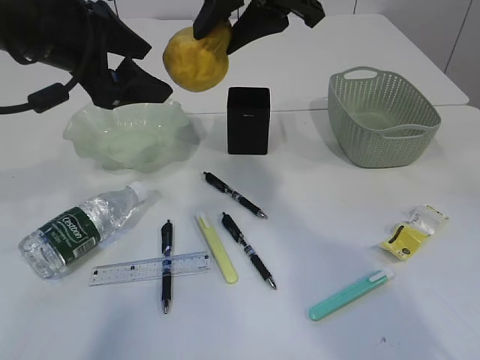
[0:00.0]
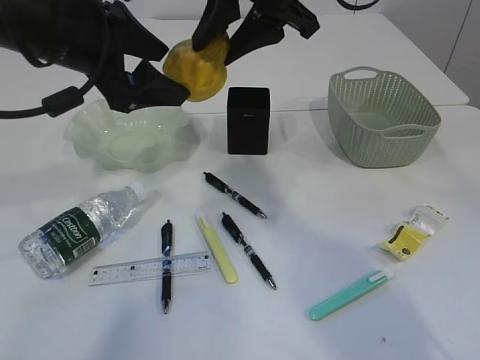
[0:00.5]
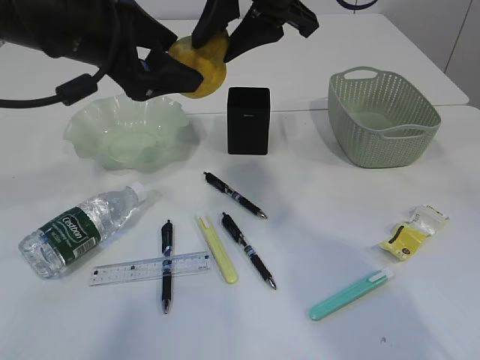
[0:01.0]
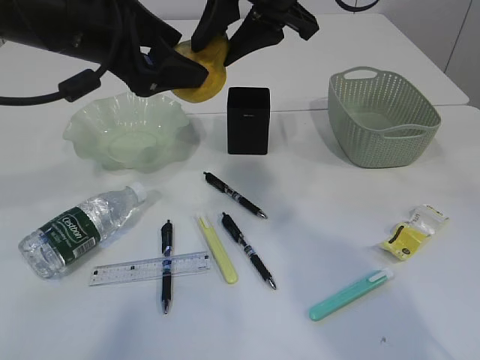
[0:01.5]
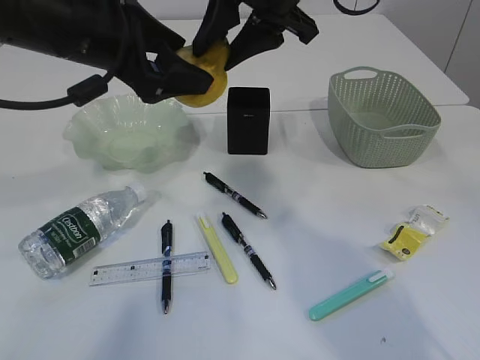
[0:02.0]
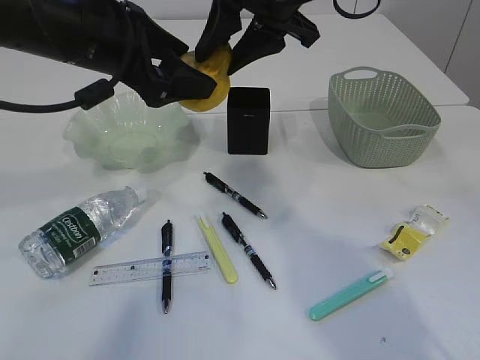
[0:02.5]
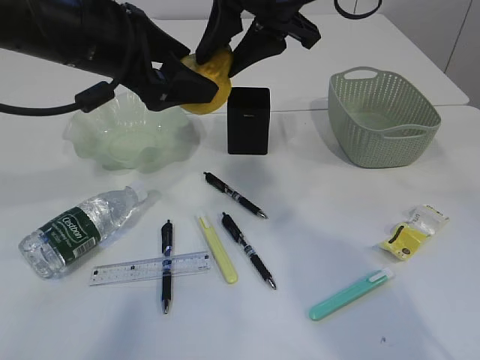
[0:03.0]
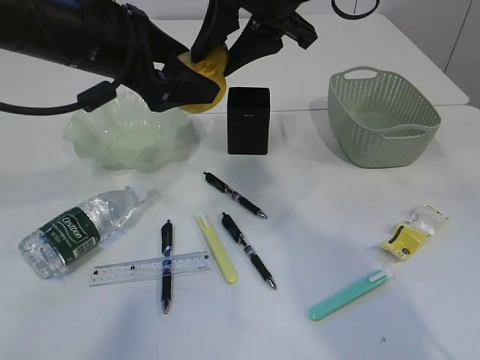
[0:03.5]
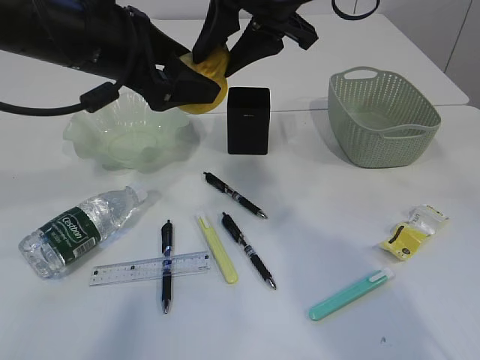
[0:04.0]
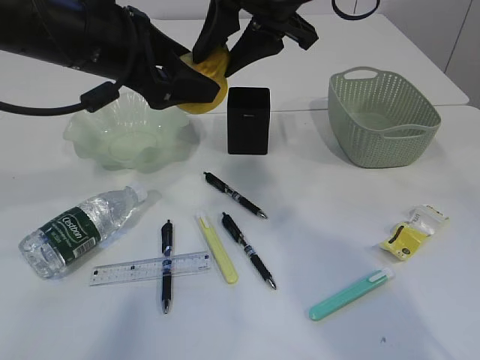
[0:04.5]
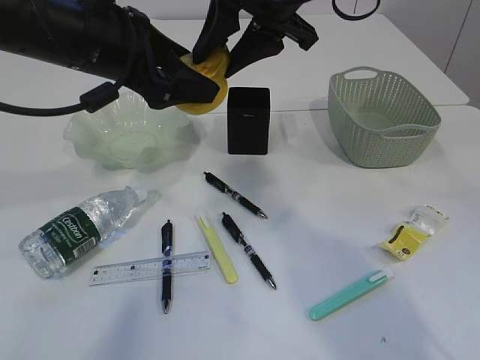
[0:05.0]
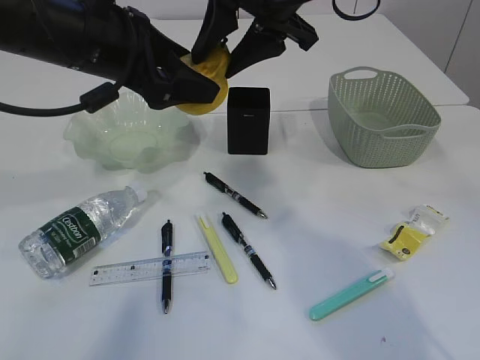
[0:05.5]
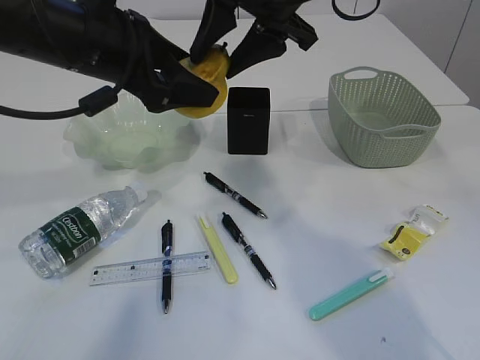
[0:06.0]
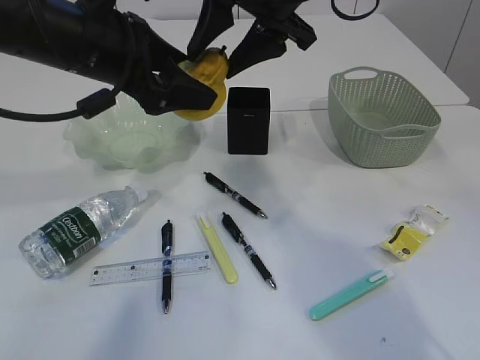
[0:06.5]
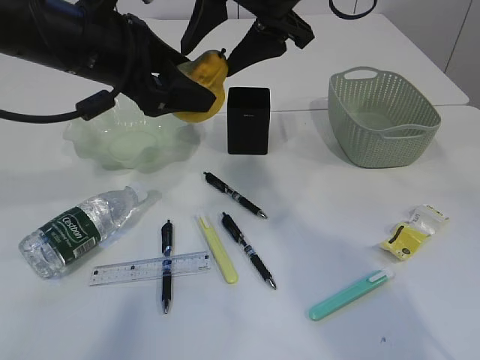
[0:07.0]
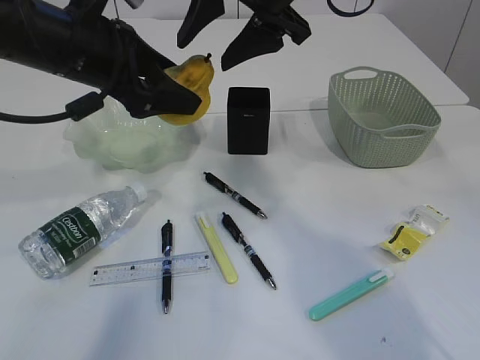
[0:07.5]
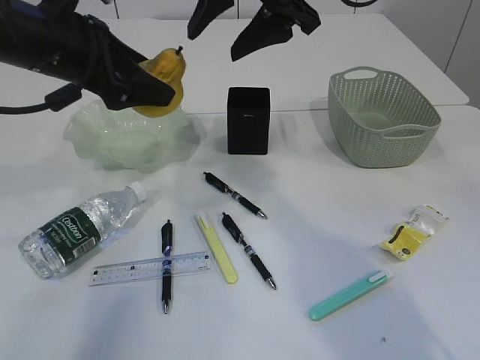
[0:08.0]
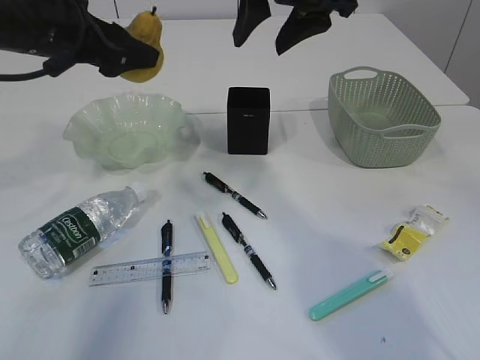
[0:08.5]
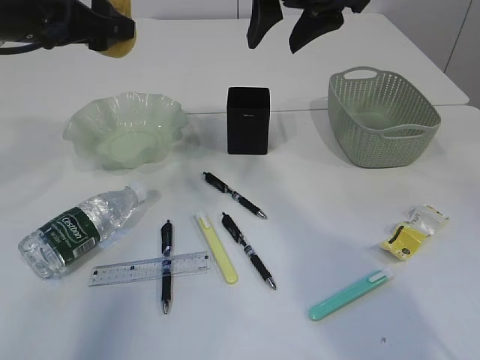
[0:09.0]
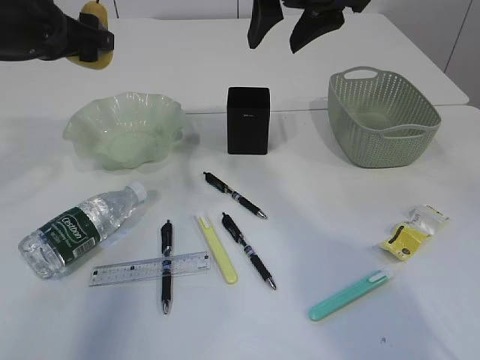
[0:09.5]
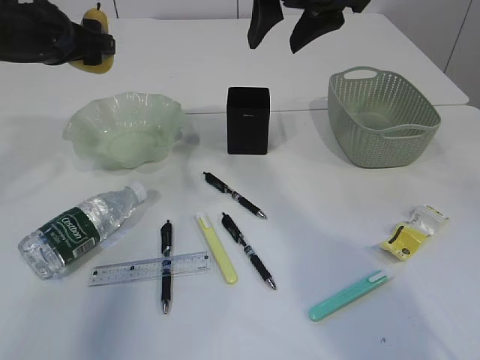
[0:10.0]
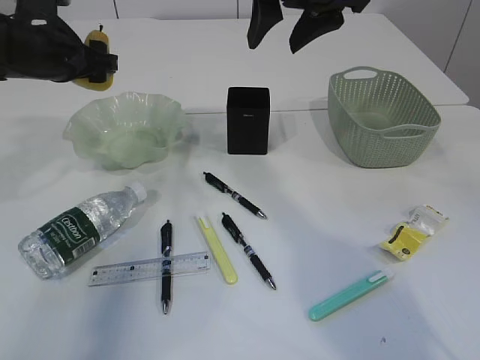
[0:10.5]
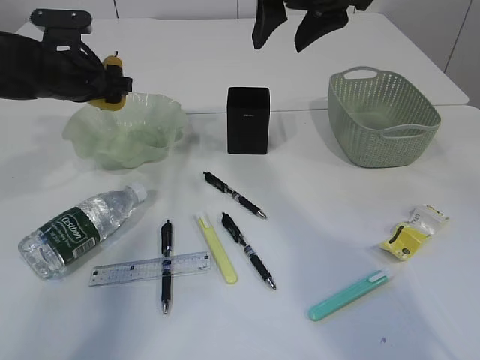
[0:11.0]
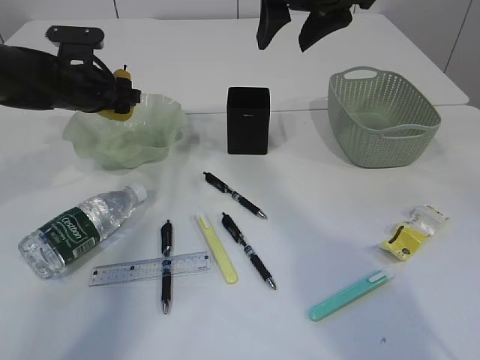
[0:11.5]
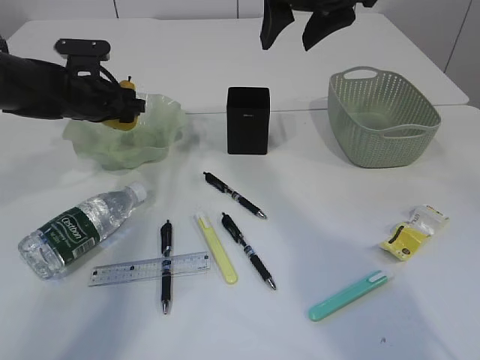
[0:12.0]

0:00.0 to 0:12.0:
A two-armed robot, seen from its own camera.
Step, 0:00.0 to 0:08.5: Hand over the pear.
0:00.0 to 0:02.0: The grippers stay close to where they were, moving slightly.
0:02.0 to 0:04.0: Neither gripper changes place.
0:04.0 to 0:06.0: Neither gripper changes place.
0:06.0 to 0:08.0: The left gripper moves about 5 cm.
0:08.0 to 0:10.0: The left gripper heads forward and to the left, covering approximately 10 cm.
0:10.0 to 0:12.0: The left gripper moves downward and forward, some 15 cm.

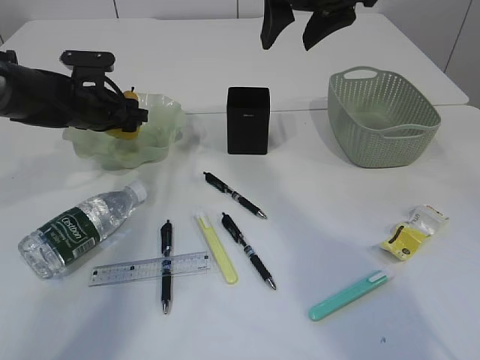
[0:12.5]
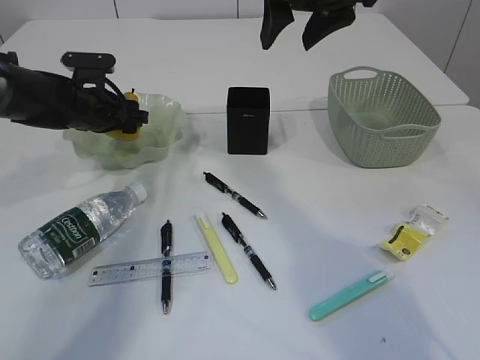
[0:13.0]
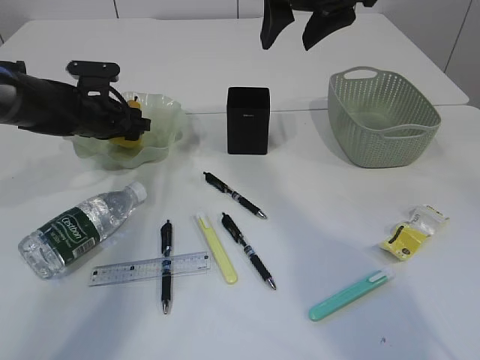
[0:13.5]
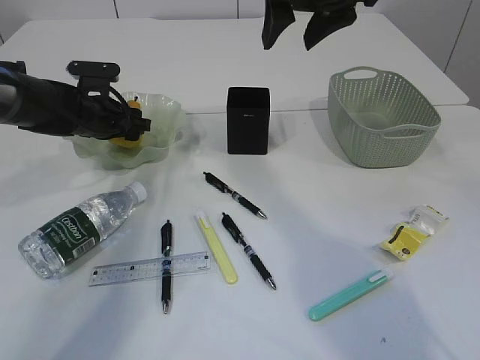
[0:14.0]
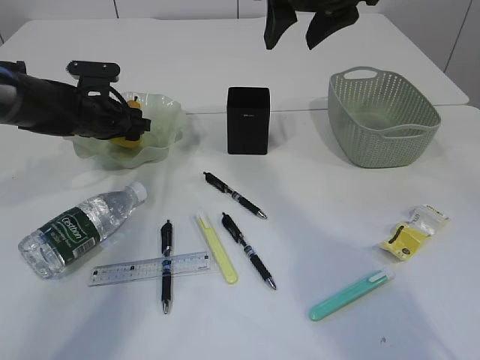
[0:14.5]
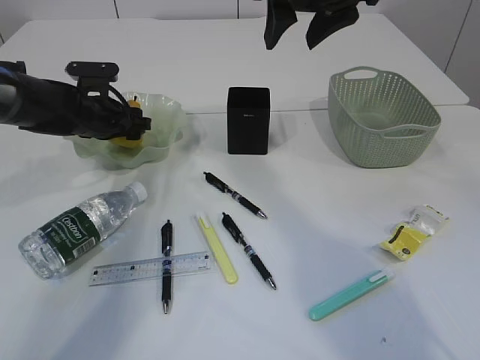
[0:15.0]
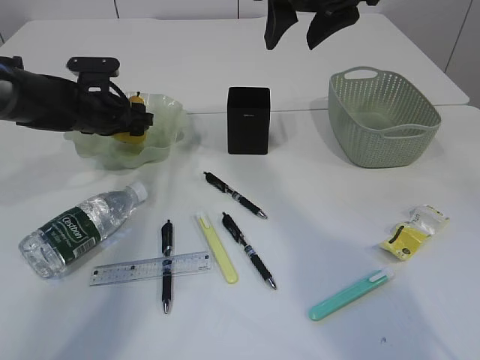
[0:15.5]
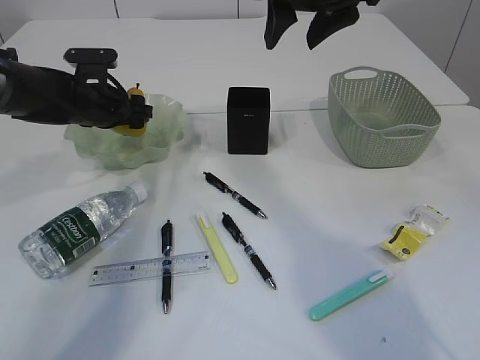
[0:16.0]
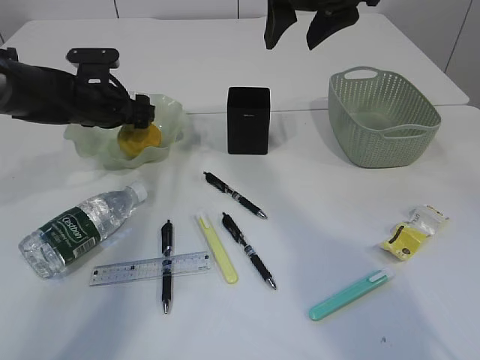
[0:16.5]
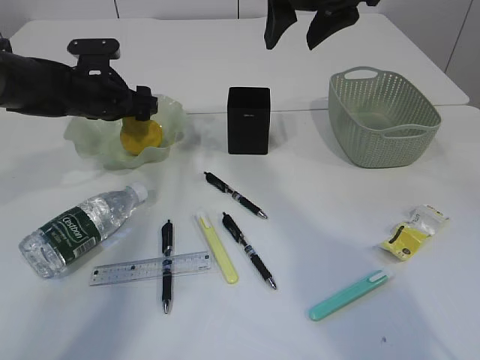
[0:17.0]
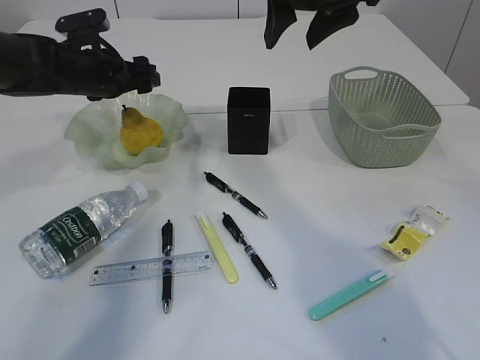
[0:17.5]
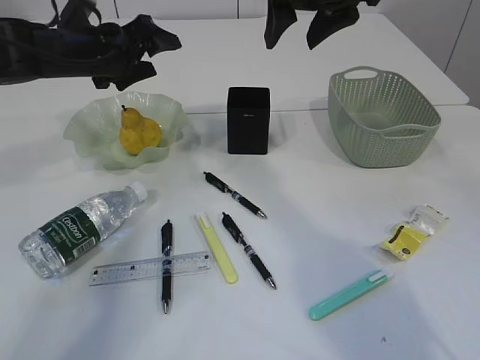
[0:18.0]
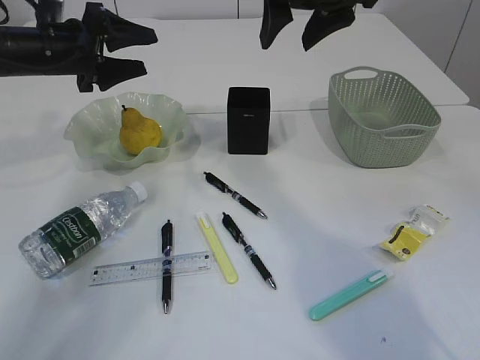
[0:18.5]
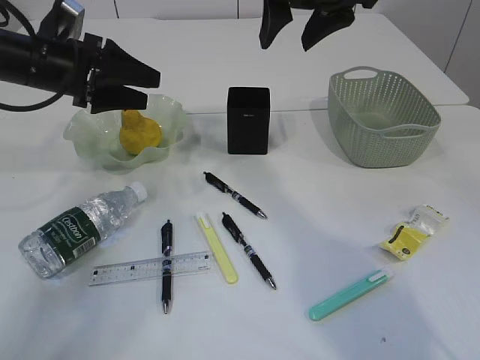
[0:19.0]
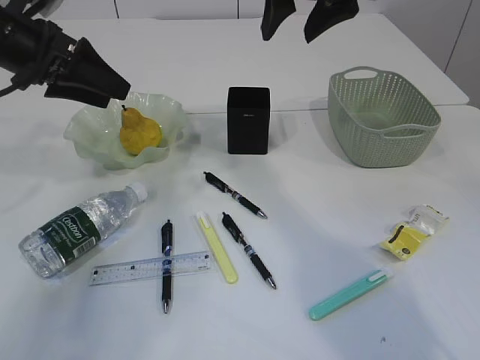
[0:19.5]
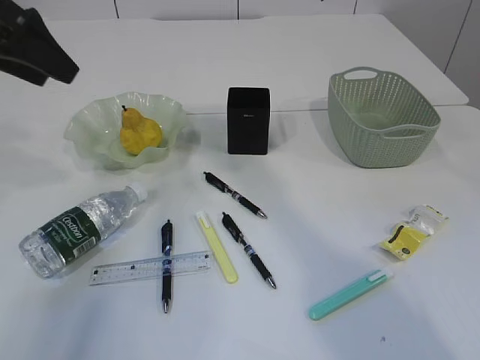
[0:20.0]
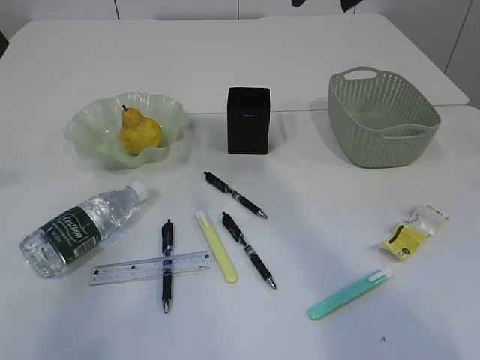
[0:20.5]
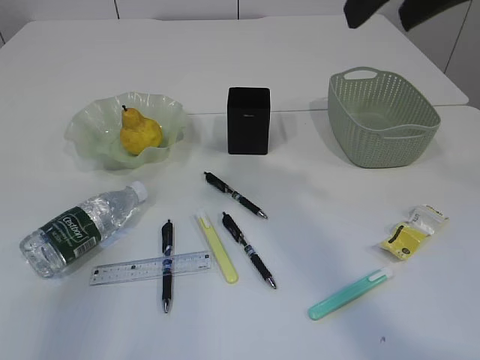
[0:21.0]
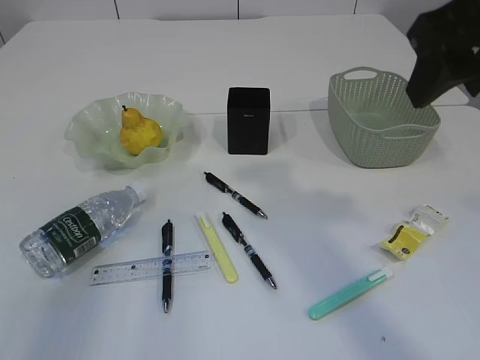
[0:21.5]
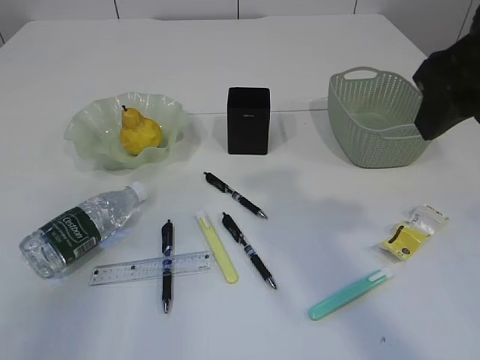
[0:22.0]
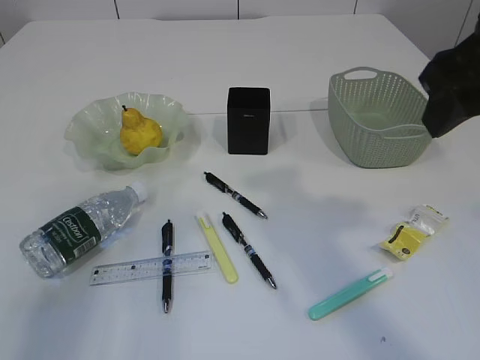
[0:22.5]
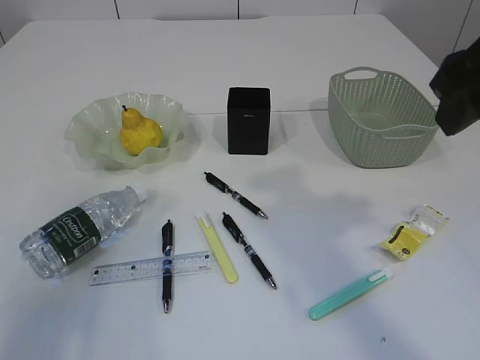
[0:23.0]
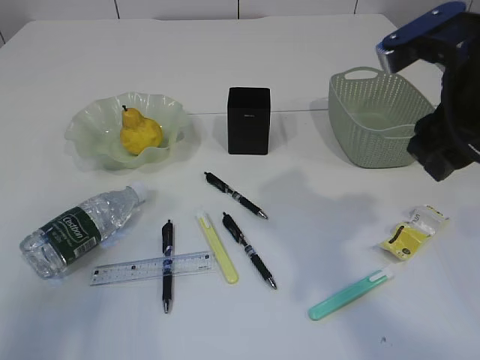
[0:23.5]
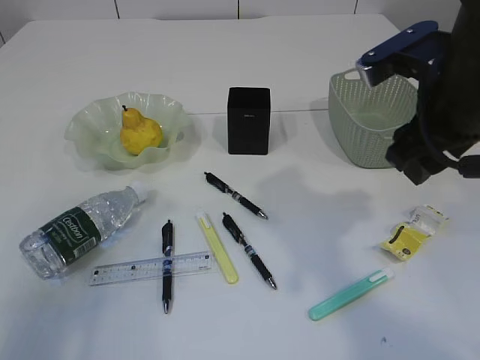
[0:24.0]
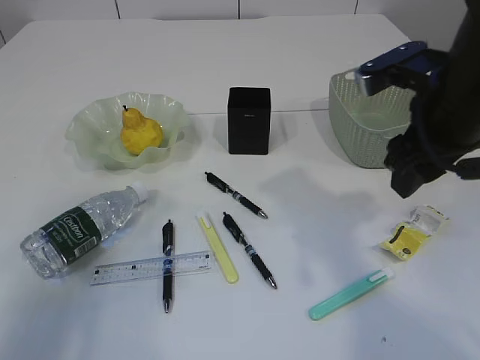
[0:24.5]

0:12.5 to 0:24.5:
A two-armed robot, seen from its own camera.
Step, 0:12.5 to 0:17.5: Place the pear in the plate.
0:12.5 to 0:16.5: There are only small adjustments of the grippers.
0:16.5 to 0:18.5: The left gripper travels upward by about 10 cm.
0:18.5 to 0:20.5: The left gripper is displaced upward and backward by approximately 20 cm. The right gripper heads backward and upward, covering some 10 cm.
0:20.5 to 0:22.5: The left gripper travels downward and backward by about 10 cm. Meanwhile the right gripper goes roughly 15 cm backward, to the right and downward.
0:22.5 to 0:24.5: The right gripper moves downward and forward, about 10 cm.

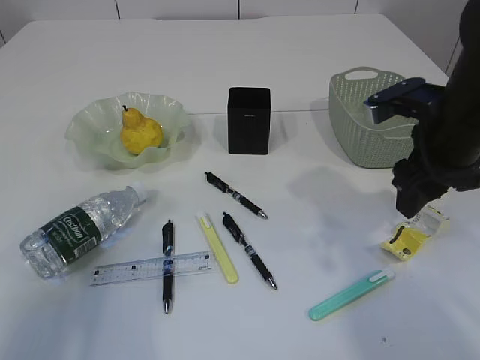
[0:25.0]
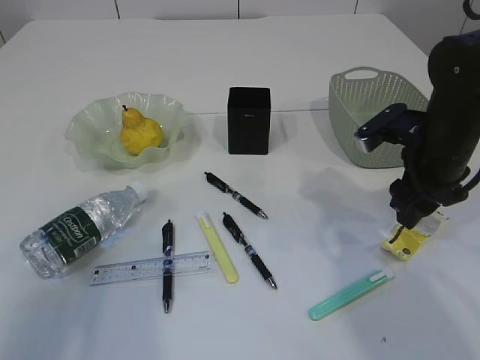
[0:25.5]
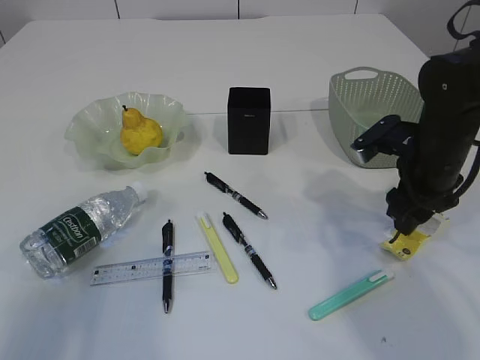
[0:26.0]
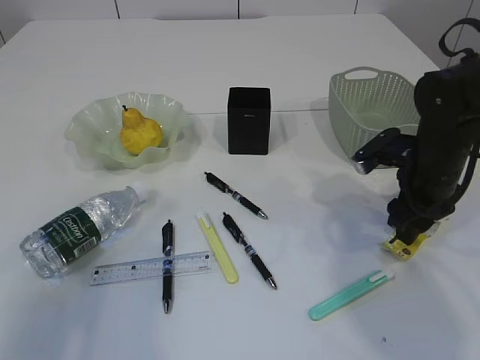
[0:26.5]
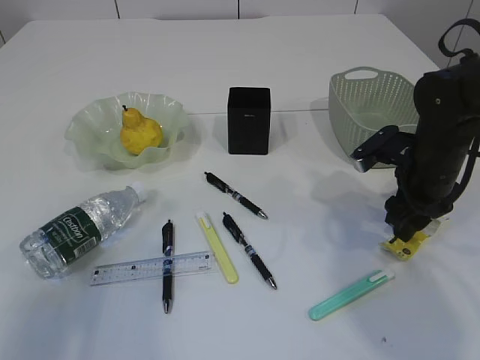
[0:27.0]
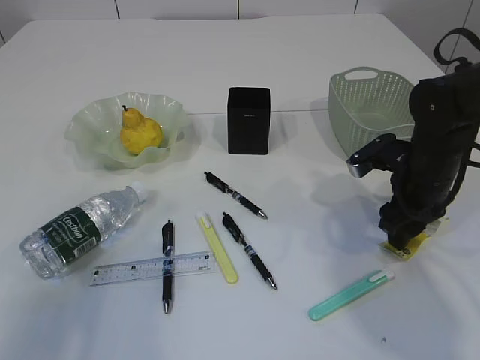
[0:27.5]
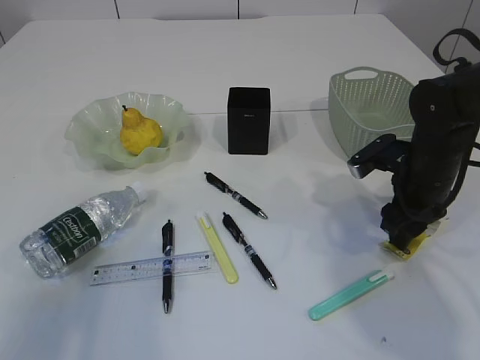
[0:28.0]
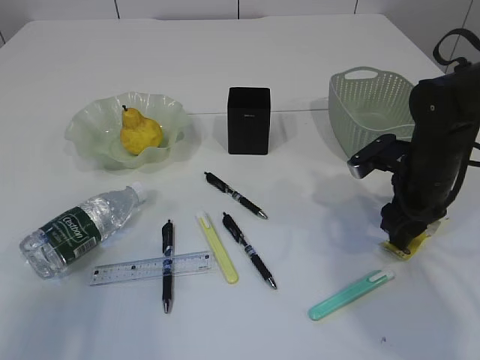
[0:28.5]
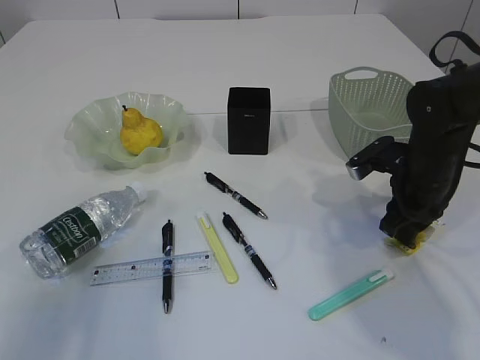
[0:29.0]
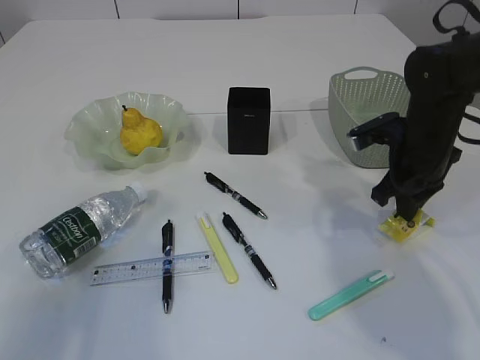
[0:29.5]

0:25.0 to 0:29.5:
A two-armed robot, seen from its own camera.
0:25.0 to 0:27.0: The right gripper shifts approximately 10 cm downward.
0:27.0 to 0:29.5: The right gripper closes up.
